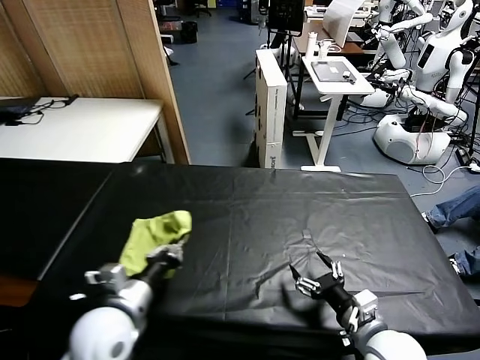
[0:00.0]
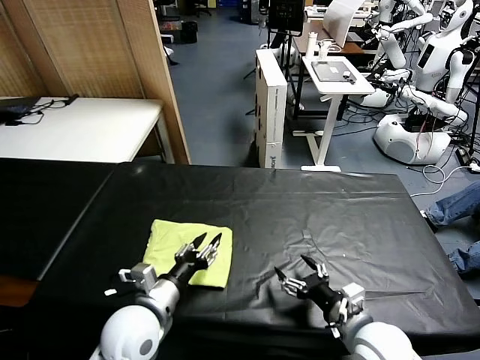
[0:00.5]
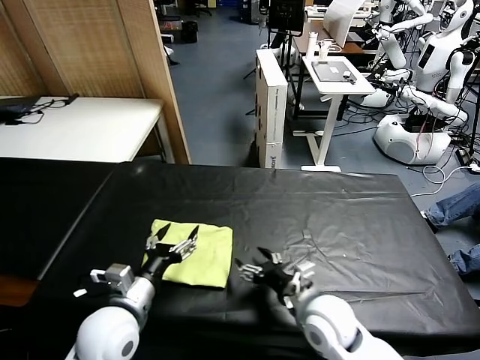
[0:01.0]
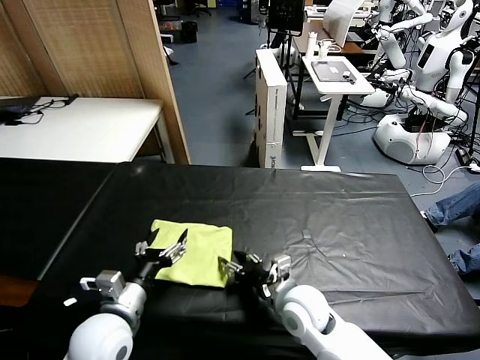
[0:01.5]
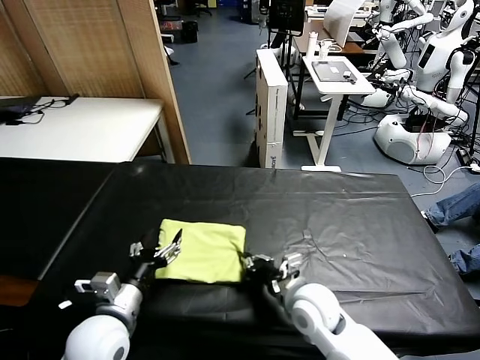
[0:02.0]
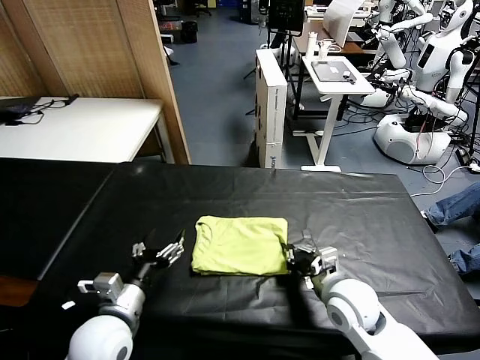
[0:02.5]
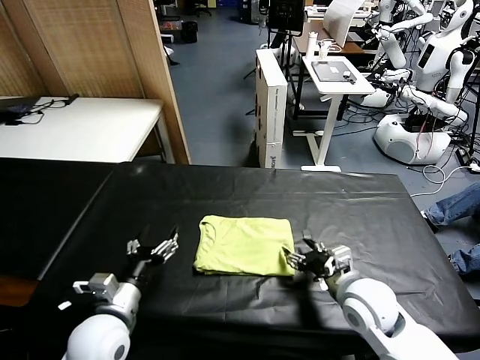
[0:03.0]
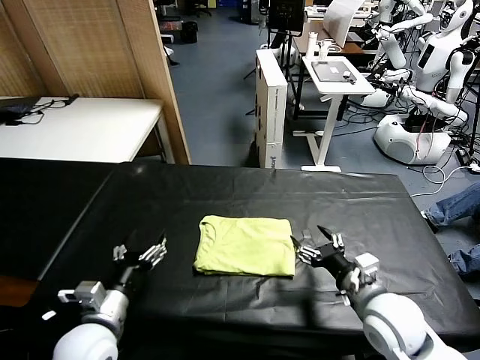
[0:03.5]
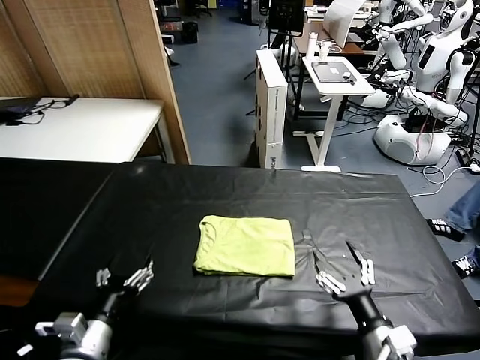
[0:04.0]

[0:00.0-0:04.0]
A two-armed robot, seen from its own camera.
Task of the whole recording: fold and organize the clothes.
Step, 0:01.0 to 0:02.5: Drag the clothes to the center of the table.
0:00.0 to 0:02.0: The left gripper opens. The right gripper is displaced to the left and forward by about 15 cm, and closes up.
0:02.0 to 0:04.0: The left gripper shifts about 5 cm backward; the right gripper moves backward and to the right, some 20 cm, and opens its fingers.

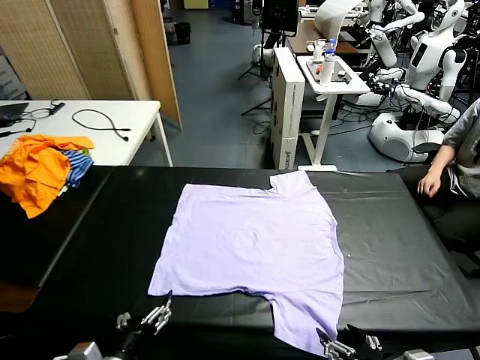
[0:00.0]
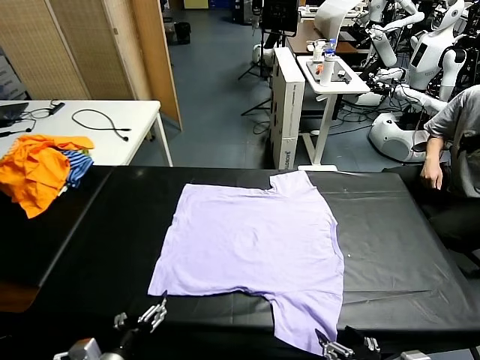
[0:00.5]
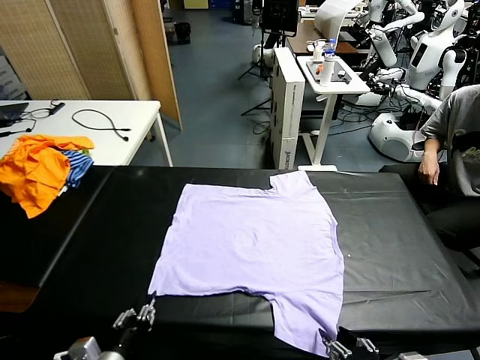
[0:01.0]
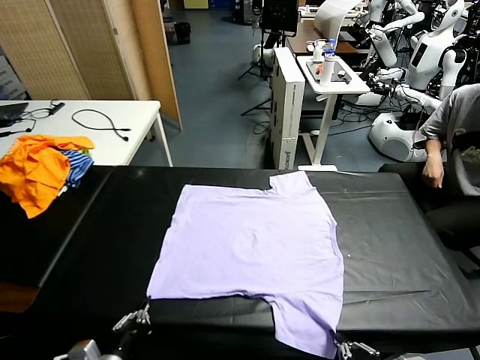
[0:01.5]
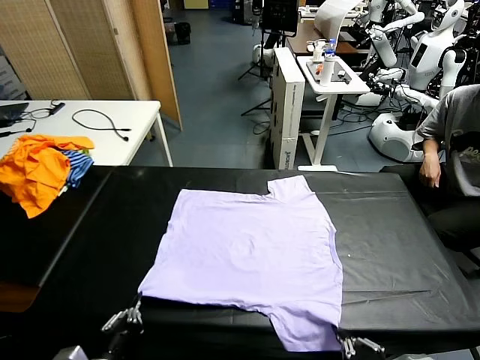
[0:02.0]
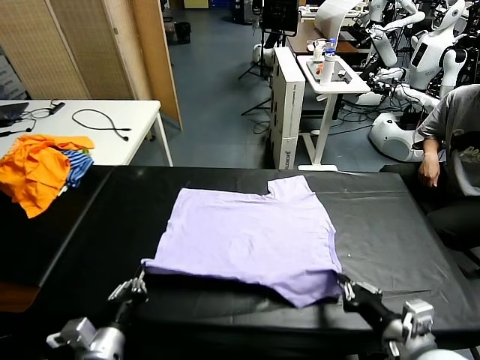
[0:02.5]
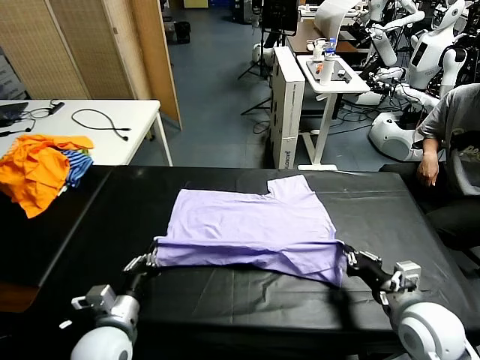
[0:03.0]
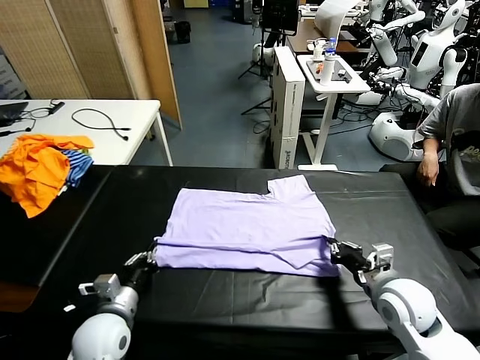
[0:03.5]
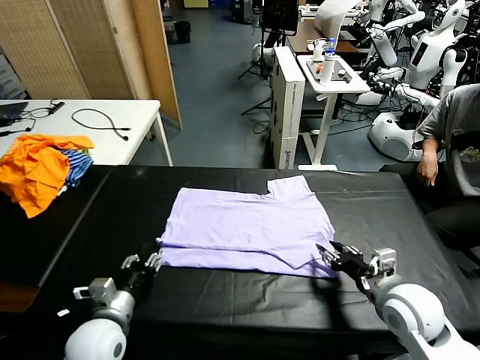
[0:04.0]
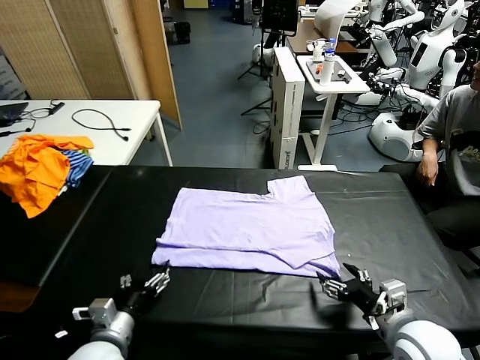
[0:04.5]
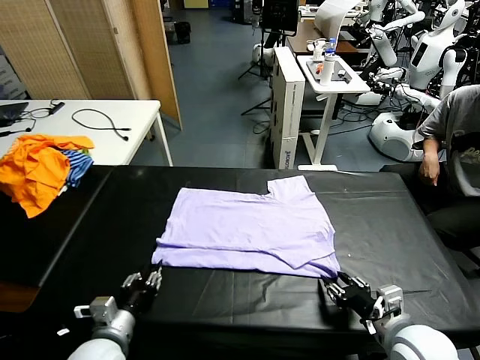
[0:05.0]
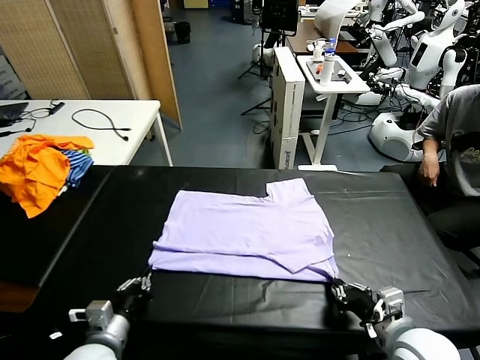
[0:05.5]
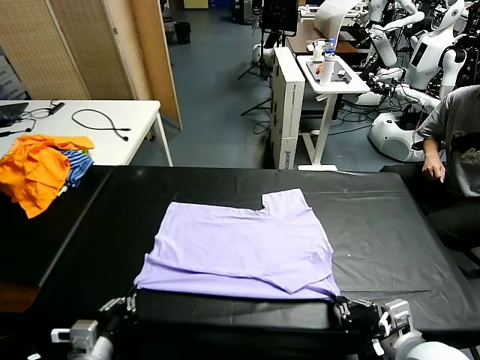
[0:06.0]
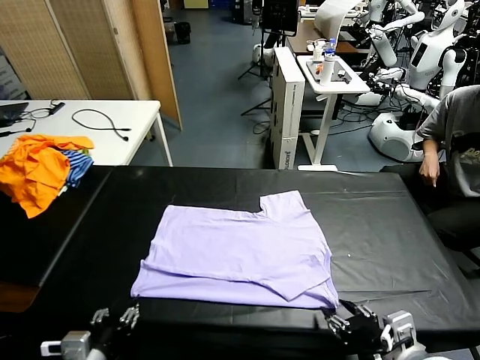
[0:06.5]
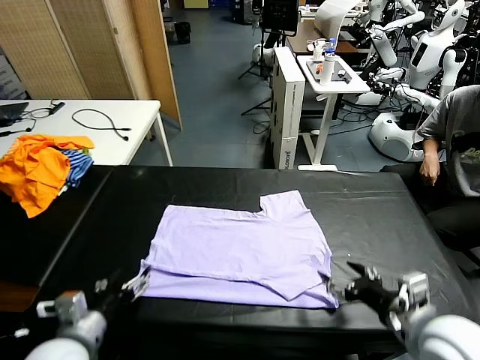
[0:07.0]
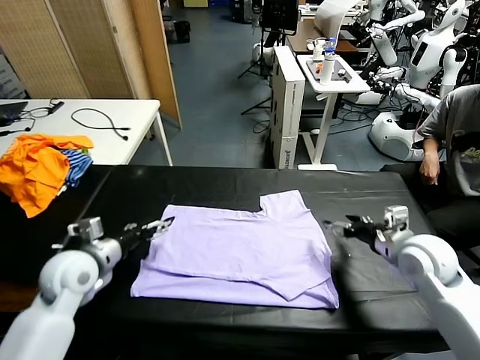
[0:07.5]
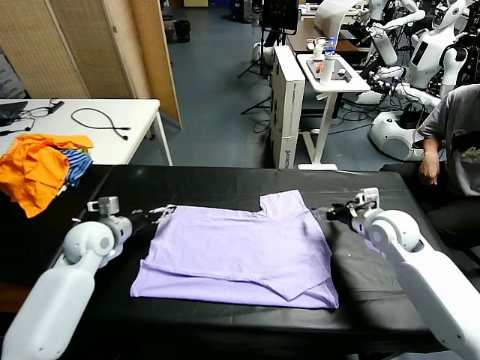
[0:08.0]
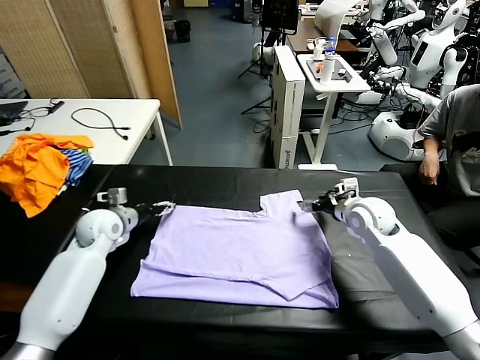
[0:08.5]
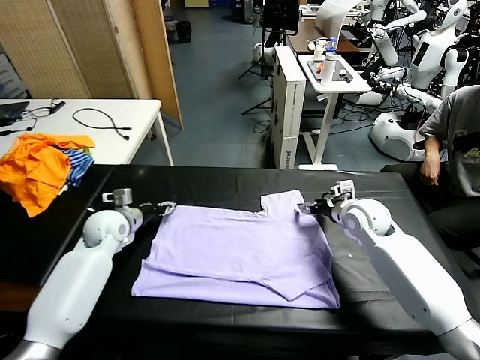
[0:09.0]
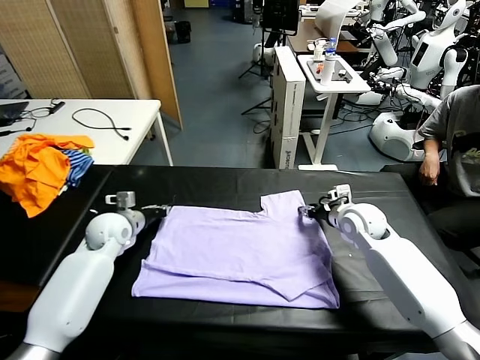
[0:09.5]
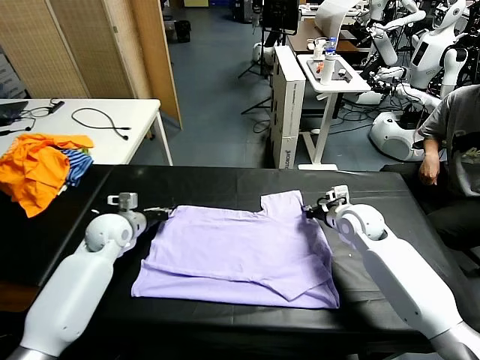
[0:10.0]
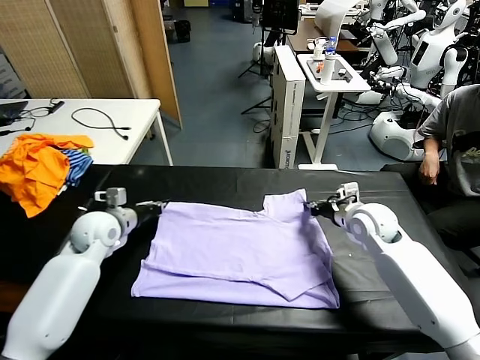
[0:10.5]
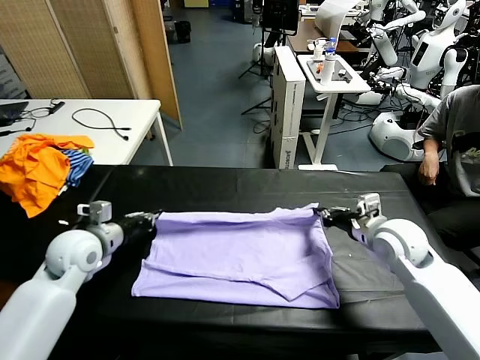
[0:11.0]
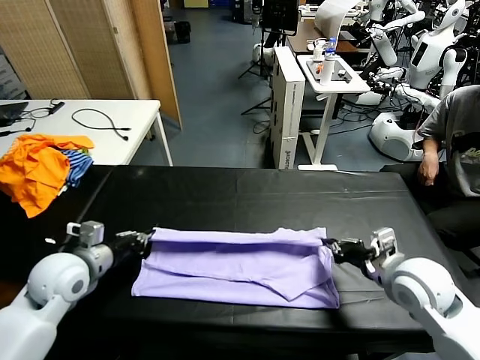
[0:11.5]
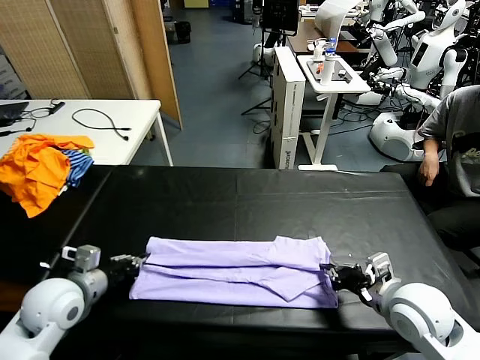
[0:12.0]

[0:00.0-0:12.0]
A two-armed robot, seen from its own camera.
Task of the whole recording: fold and organize the clothes.
Step, 0:00.0 to 0:01.5: use both grippers simultaneously to clamp the lower edge of the clothing fabric.
Step, 0:02.0 to 0:04.0: use both grippers to drag the lower edge of the fabric forward and fold it over the upper edge.
Step, 0:04.5 to 0:06.5: Drag the clothes downward with both gripper.
Step, 0:07.0 to 0:09.5: use both grippers simultaneously to clamp the upper edge of the clothing fabric.
0:02.0 to 0:04.0: Both grippers travel together forward, some 10 cm. The right gripper opens its fingers. Meanwhile the left gripper opens up.
0:04.0 to 0:06.0: The two grippers go approximately 10 cm backward. The right gripper closes. The left gripper closes up.
0:06.0 to 0:08.0: The grippers both shift forward by approximately 30 cm. The left gripper opens up; the right gripper opens its fingers.
0:08.0 to 0:10.0: The right gripper closes. The left gripper closes its fingers.
0:10.0 to 0:12.0: The grippers both shift backward by approximately 20 cm.

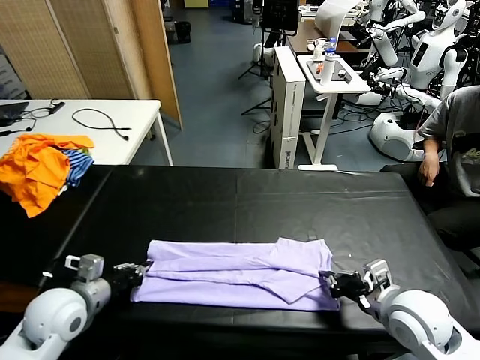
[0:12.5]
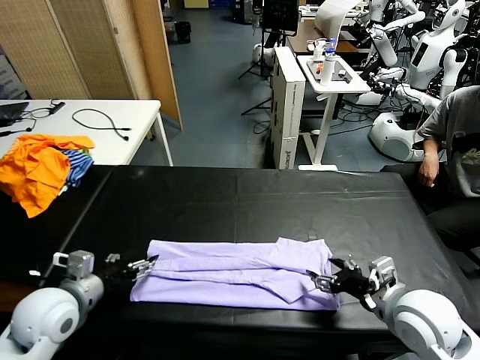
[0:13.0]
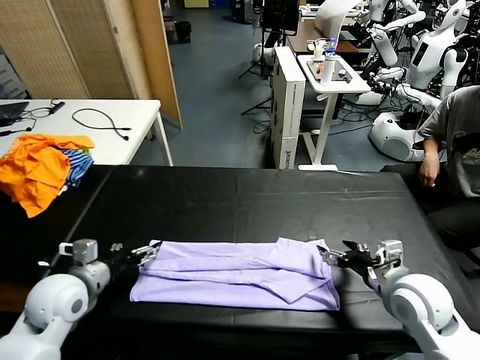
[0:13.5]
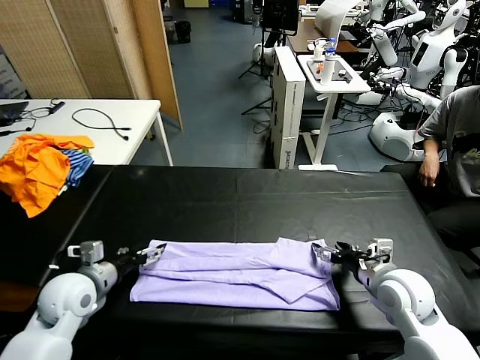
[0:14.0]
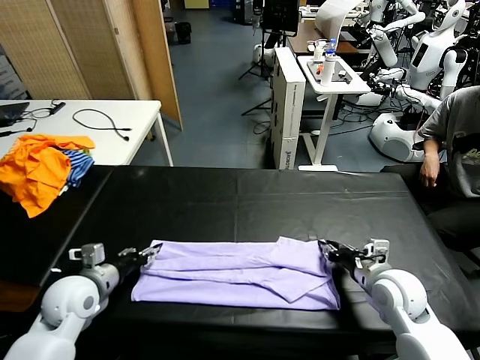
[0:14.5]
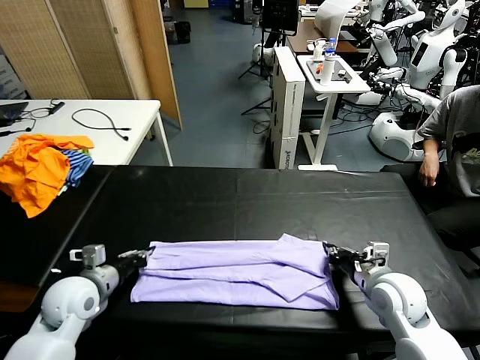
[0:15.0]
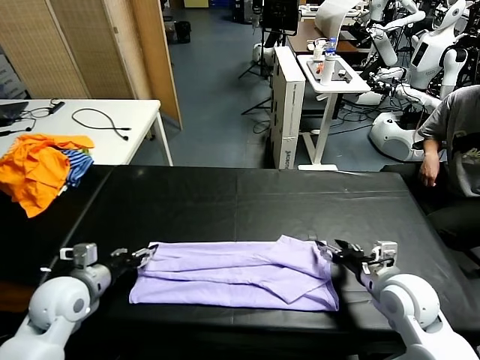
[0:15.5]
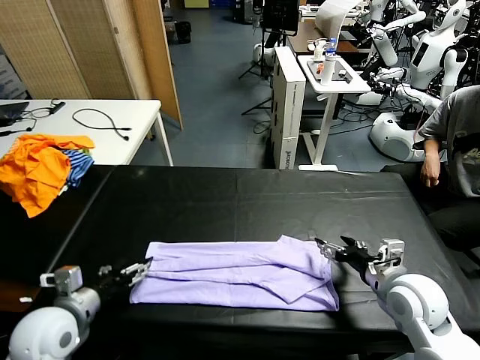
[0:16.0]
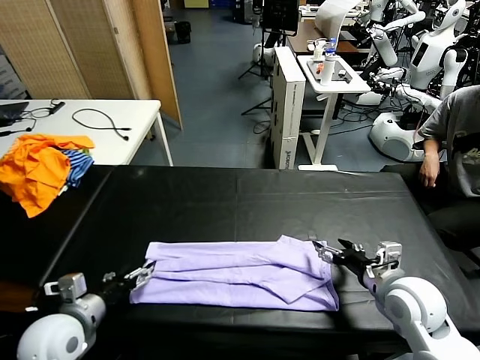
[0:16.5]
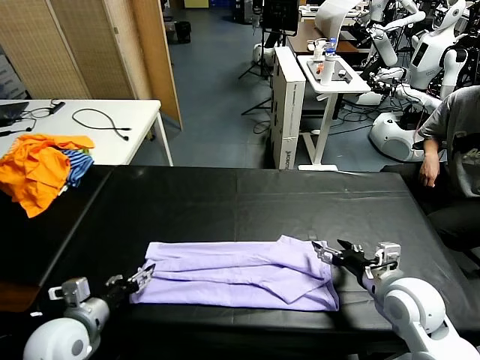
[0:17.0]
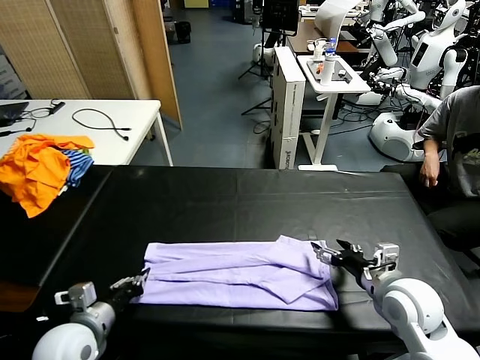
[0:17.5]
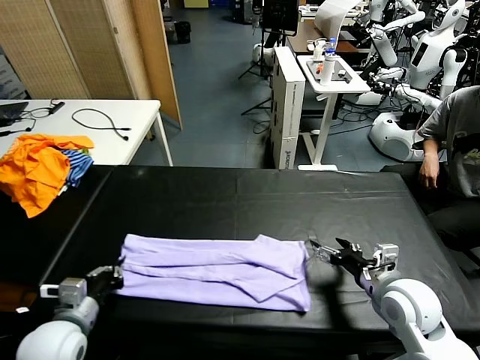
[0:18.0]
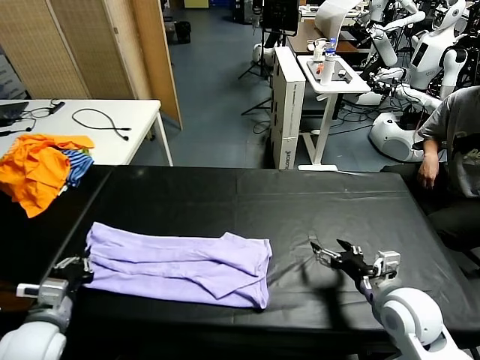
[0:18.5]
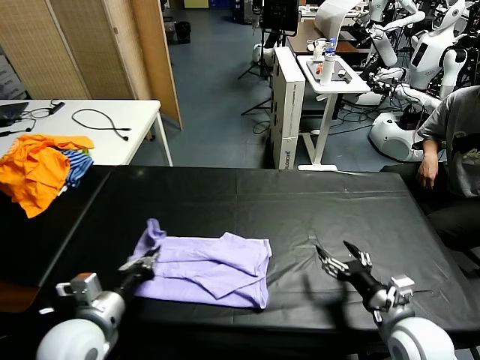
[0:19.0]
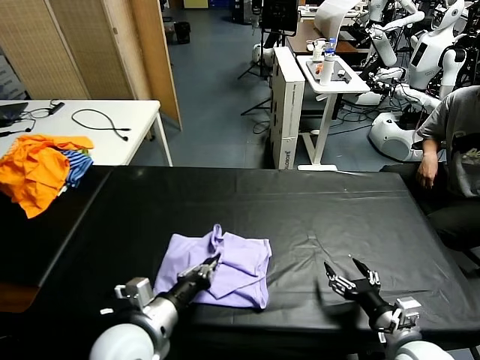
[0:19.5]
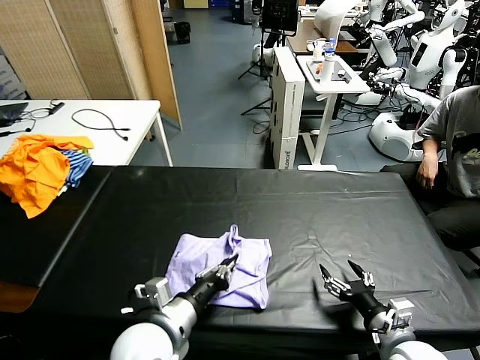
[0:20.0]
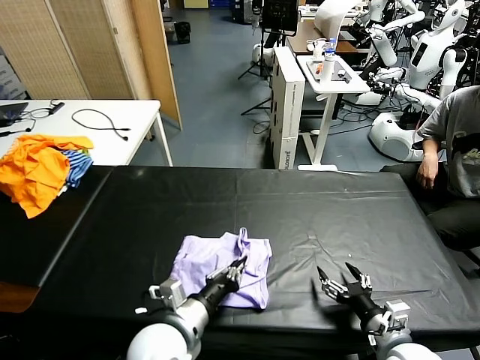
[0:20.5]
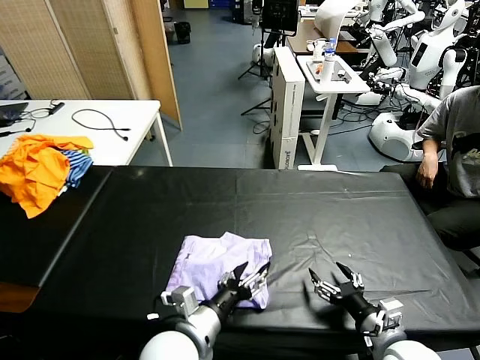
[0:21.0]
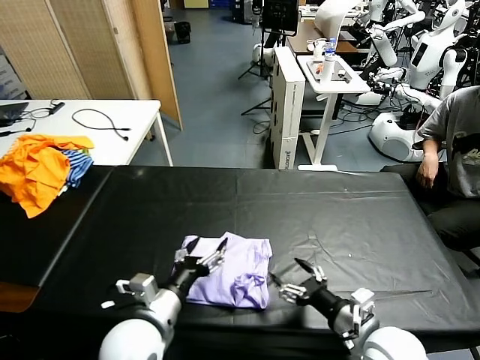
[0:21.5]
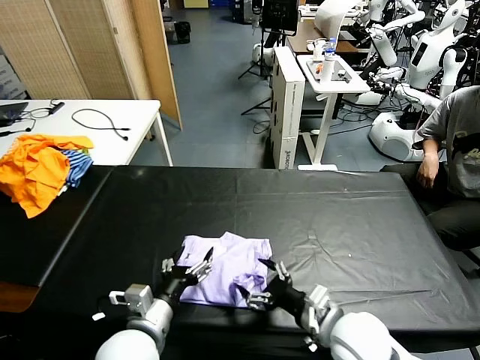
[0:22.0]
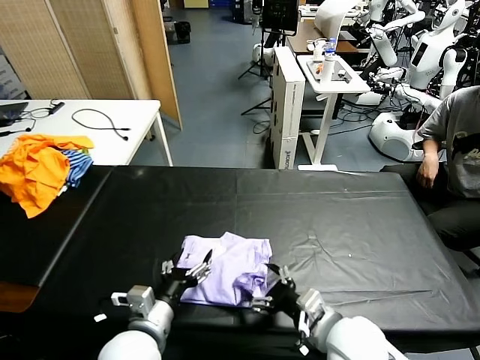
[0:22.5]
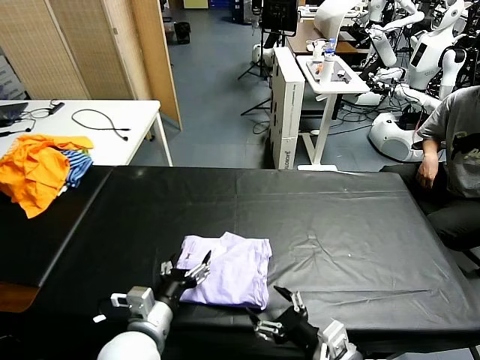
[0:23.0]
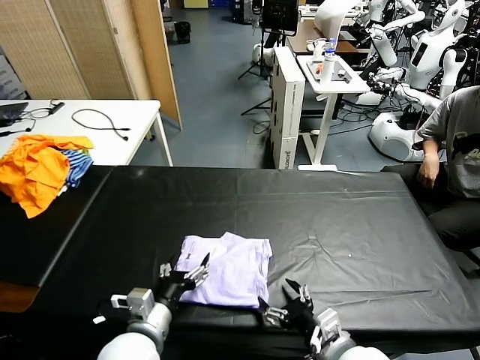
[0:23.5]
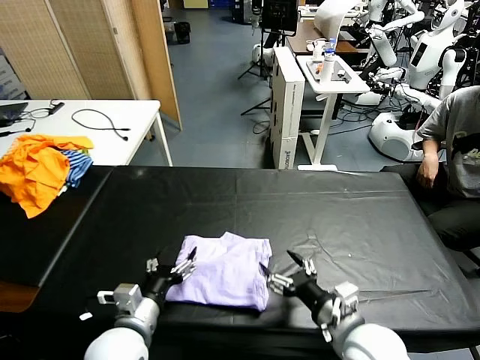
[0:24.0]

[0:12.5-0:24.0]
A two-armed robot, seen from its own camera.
Task of the whole recording: fold and organize the clothes.
Step, 0:12.5 to 0:15.5: use both grippers to drag the upper edge of the fabric backward and fold it over the lower edge.
Step, 0:16.0 to 0:17.0: use the left gripper to clamp the left edge of the fabric.
0:12.5 to 0:14.5: The right gripper shifts approximately 5 cm forward, and opens, then closes again, while the left gripper opens its fingers.
0:14.5 to 0:16.5: The right gripper opens. Meanwhile the left gripper is displaced backward by some 10 cm, and opens up.
0:16.5 to 0:18.5: The left gripper closes its fingers.
0:18.5 to 0:20.0: The left gripper goes approximately 20 cm to the right, while the right gripper is displaced backward by approximately 5 cm.
0:20.0 to 0:22.0: The left gripper opens its fingers. The right gripper moves to the left, roughly 10 cm.
0:22.0 to 0:24.0: The right gripper goes backward and returns, roughly 10 cm each way.
